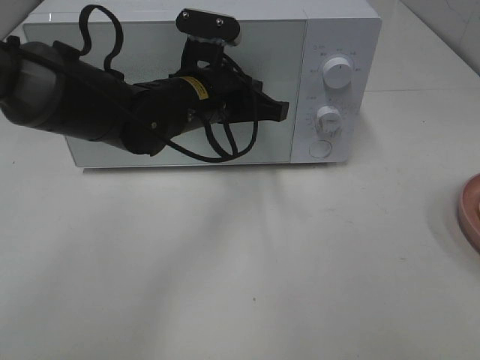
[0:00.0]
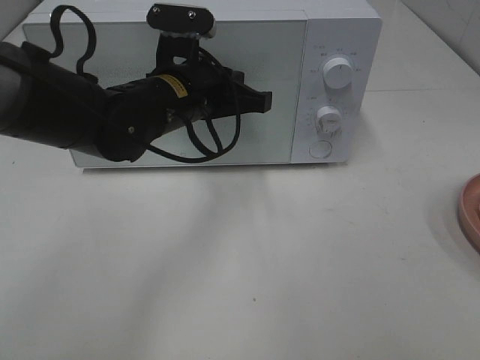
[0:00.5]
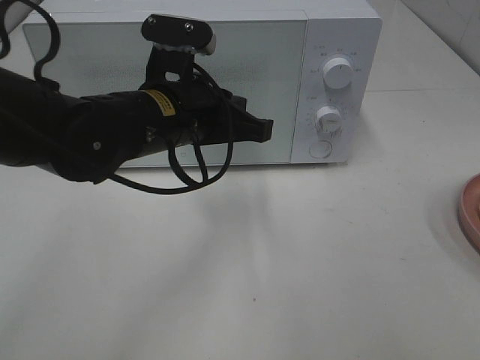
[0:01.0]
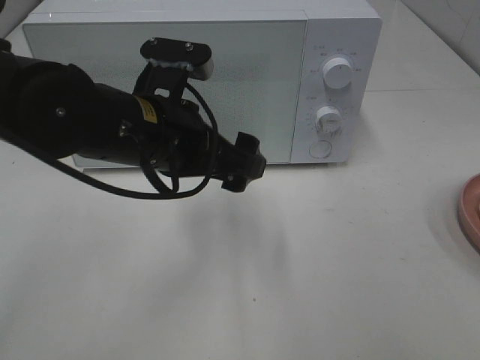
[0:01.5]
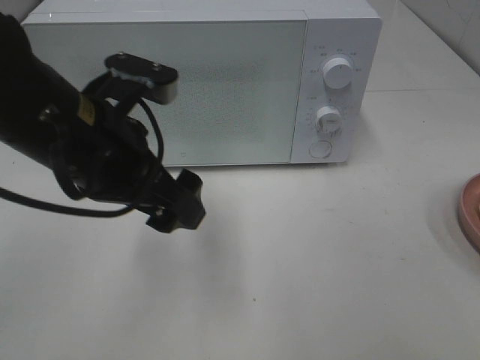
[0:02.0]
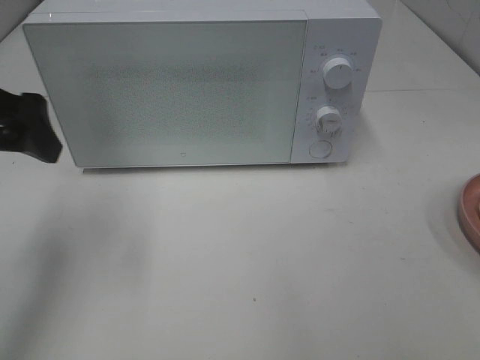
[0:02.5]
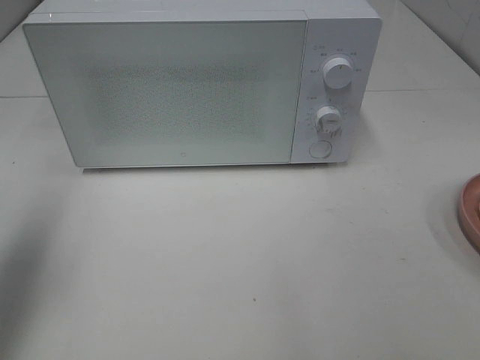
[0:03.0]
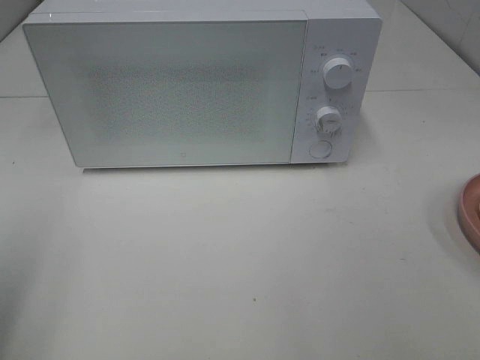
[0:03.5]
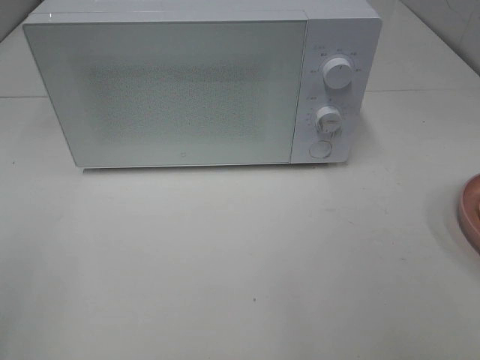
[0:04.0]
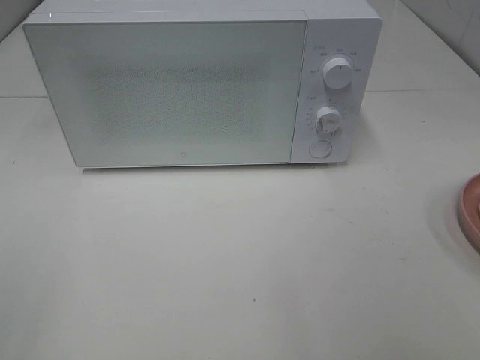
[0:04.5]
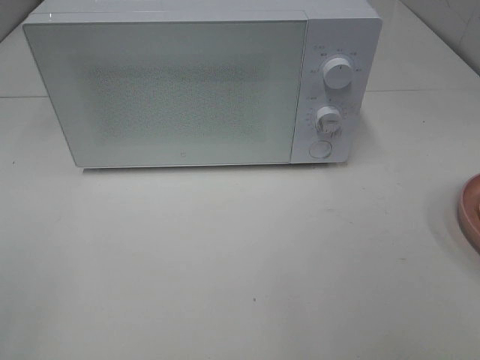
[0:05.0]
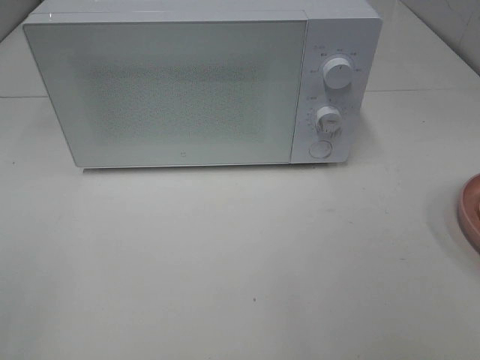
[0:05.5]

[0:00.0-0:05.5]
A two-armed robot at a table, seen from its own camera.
Task of the whole recording: Heat Sandwich.
0:00.0 to 0:02.0: The left gripper moves backward, to the left and upward, approximately 15 cm, and opens up.
0:02.0 to 0:03.5: The left gripper heads to the left and backward, covering approximately 25 cm.
